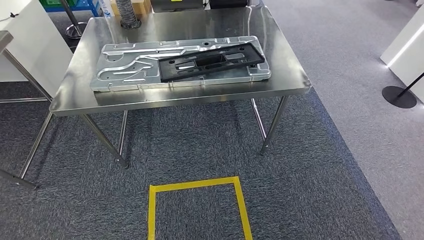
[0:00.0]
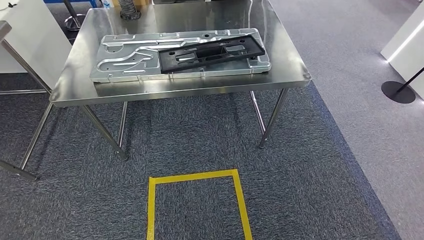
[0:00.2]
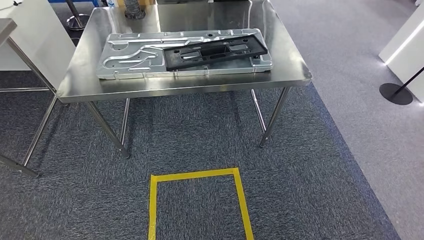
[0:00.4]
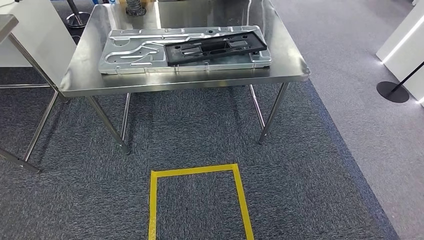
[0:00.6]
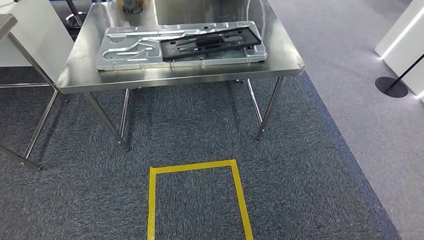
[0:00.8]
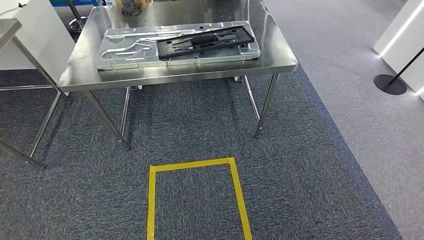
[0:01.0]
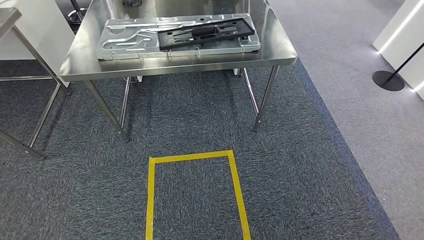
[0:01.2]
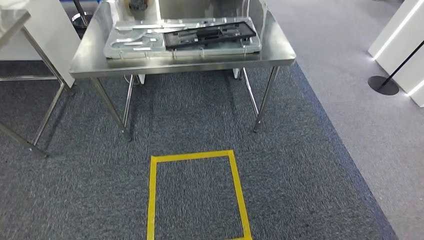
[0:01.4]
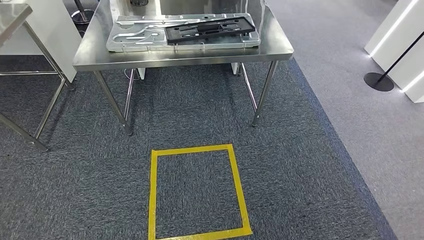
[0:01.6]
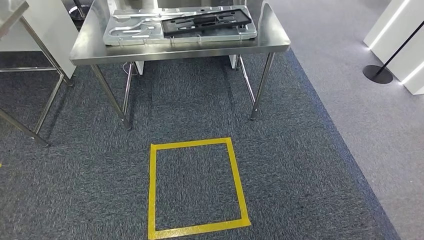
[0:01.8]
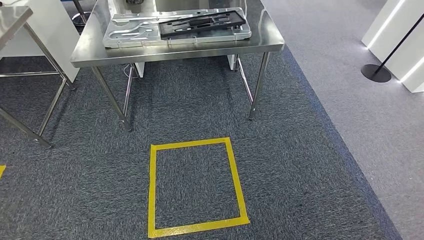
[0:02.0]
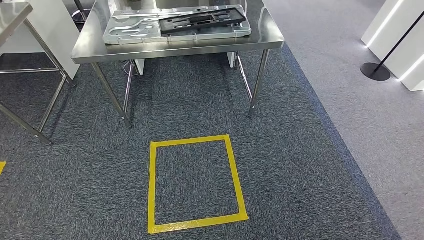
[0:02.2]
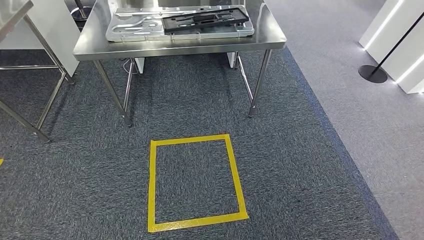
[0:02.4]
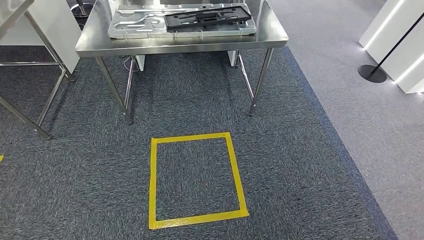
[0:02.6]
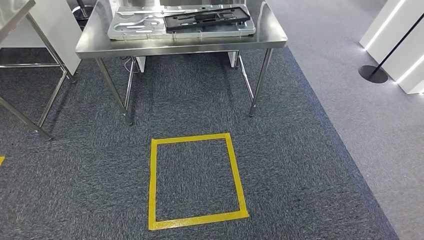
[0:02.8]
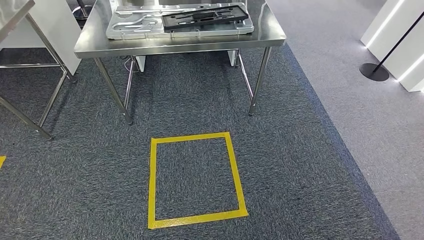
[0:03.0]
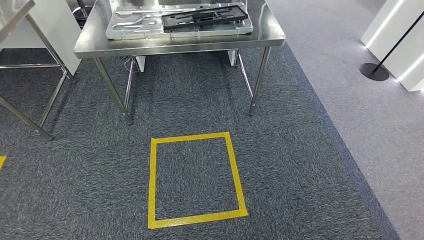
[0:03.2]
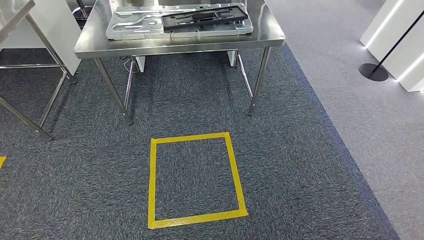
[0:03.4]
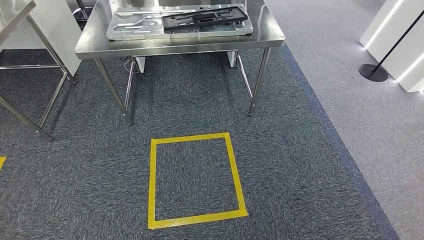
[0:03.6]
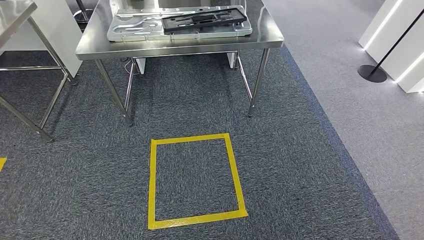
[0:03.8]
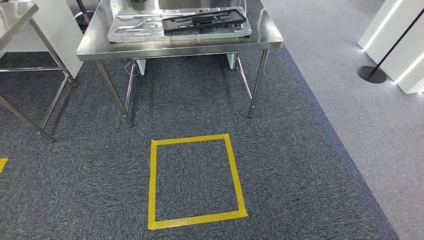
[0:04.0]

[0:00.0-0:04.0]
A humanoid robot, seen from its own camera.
Step, 0:00.2 to 0:04.0: Move to the initial position of the shelf.
0:02.6 to 0:04.0: There are only small adjustments of the hands.
